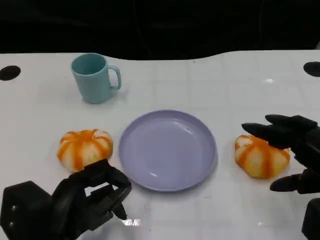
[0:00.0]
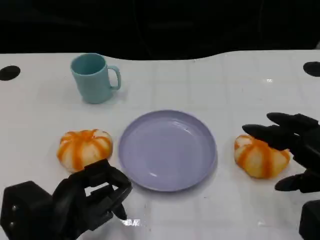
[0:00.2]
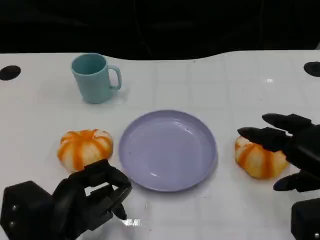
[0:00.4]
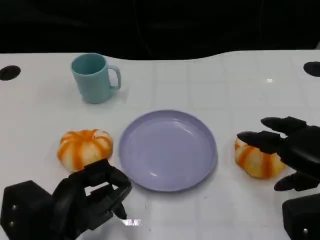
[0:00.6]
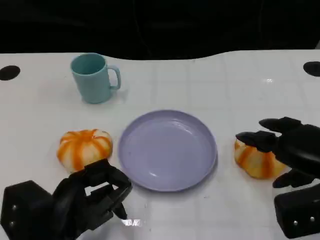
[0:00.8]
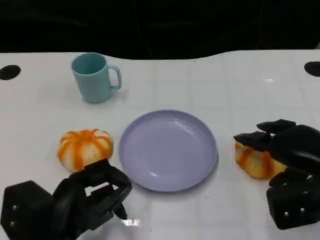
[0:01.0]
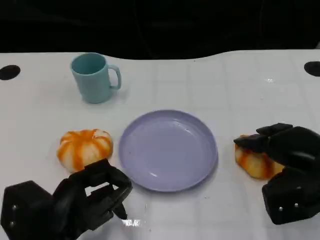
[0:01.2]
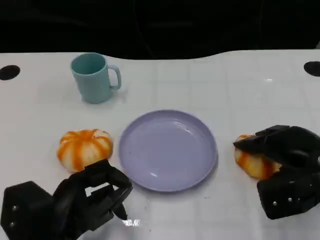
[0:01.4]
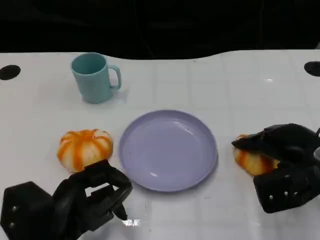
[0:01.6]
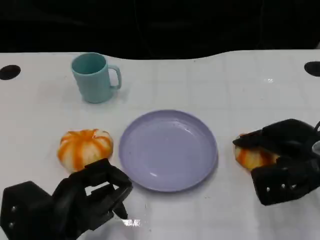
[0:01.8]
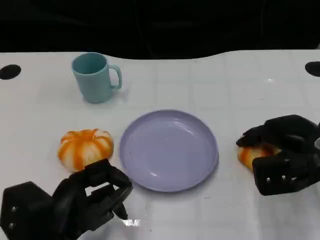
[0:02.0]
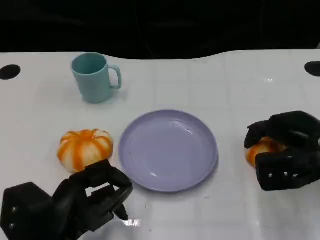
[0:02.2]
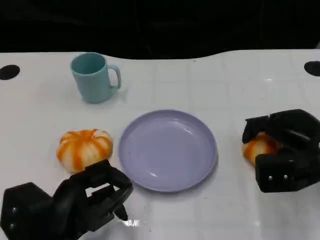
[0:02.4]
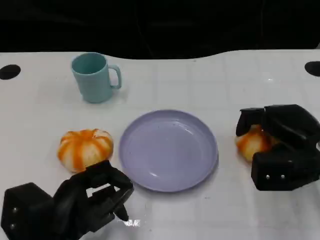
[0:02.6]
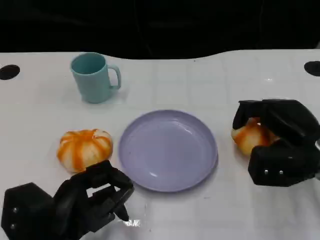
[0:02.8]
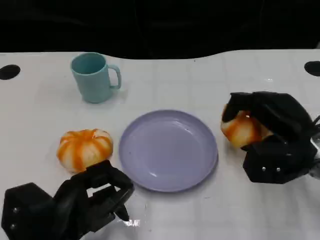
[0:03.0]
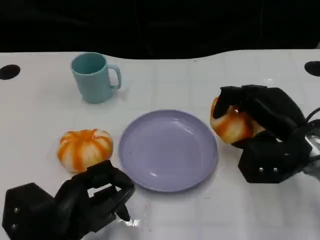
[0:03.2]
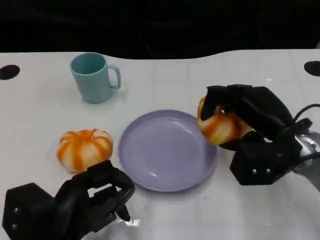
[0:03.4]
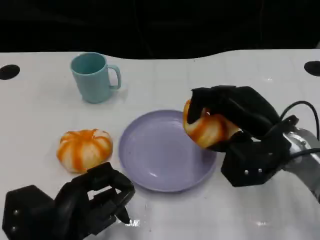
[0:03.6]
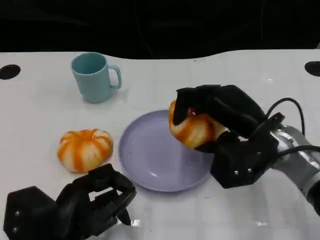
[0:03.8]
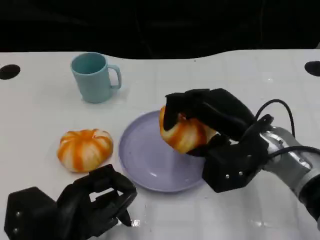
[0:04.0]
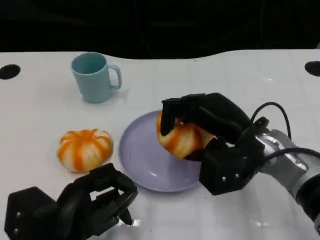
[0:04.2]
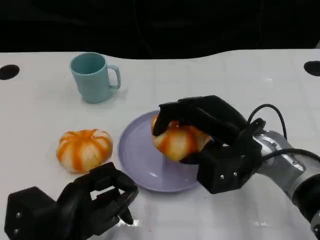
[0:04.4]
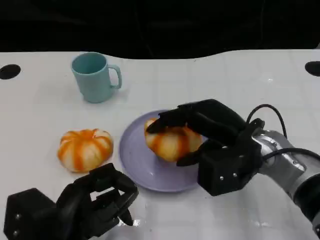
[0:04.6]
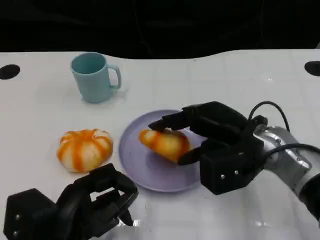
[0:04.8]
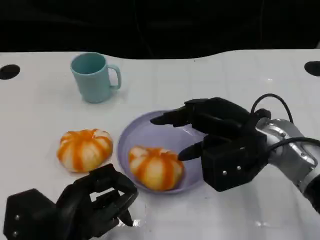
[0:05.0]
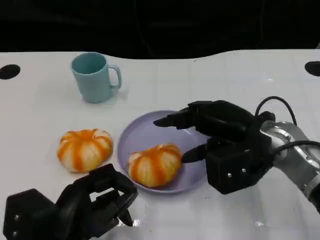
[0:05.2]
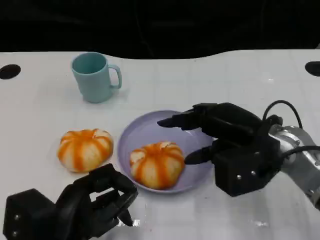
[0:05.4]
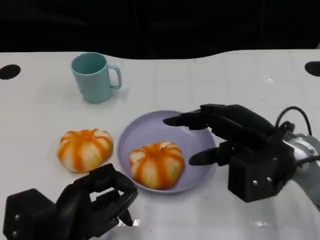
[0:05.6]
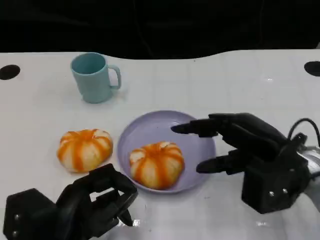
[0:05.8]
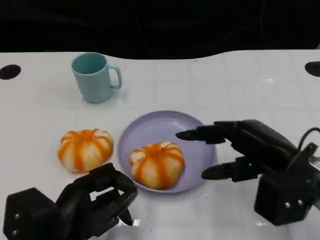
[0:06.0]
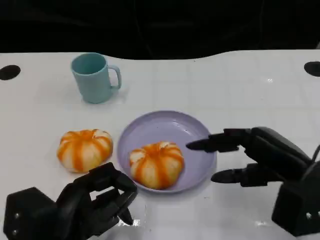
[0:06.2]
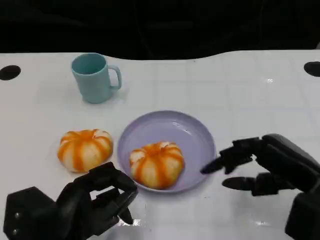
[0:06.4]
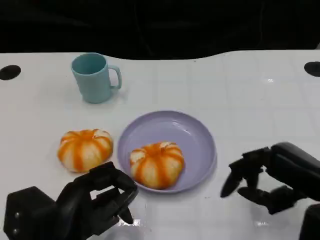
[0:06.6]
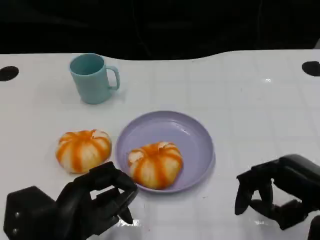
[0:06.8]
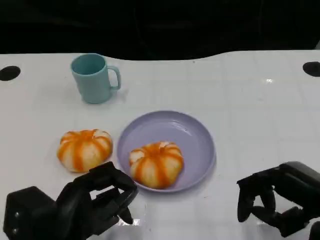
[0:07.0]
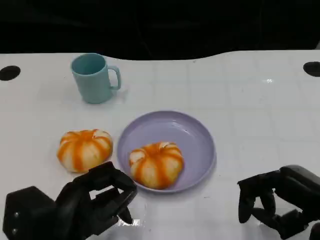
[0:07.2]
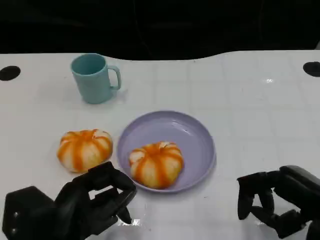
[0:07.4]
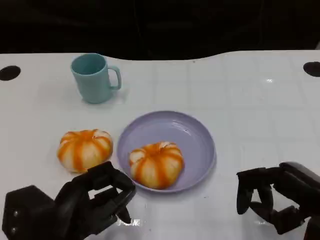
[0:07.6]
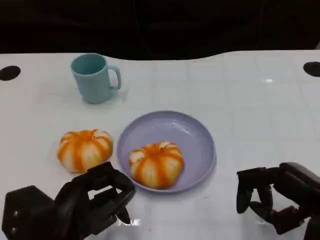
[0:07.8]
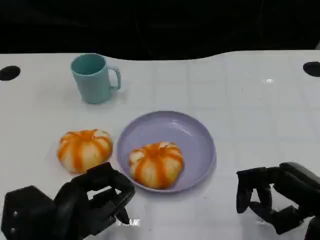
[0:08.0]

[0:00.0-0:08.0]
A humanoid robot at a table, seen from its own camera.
Task of the whole recording: Grasp the bread from the table and place it into the plate.
0:00.0 to 0:01.6: The right hand is displaced forward by some 10 cm.
0:03.2 to 0:04.8: The right hand moves to the left, roughly 5 cm.
0:04.8 to 0:06.4: The right hand goes approximately 10 cm to the right and backward.
0:06.4 to 0:08.0: The hands move only a little.

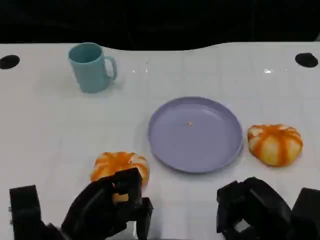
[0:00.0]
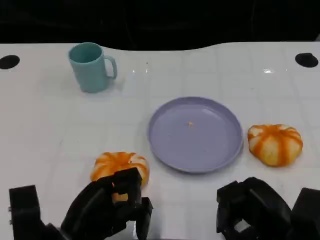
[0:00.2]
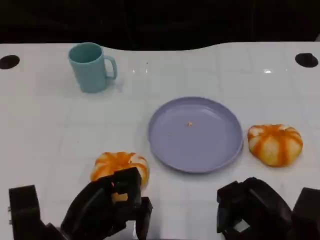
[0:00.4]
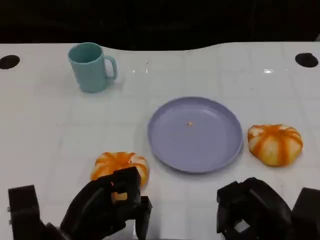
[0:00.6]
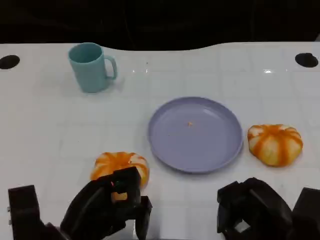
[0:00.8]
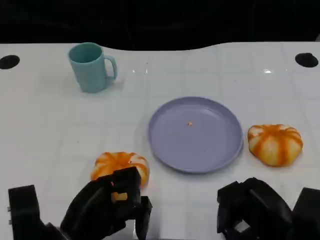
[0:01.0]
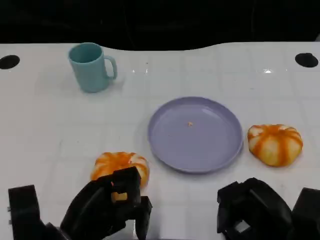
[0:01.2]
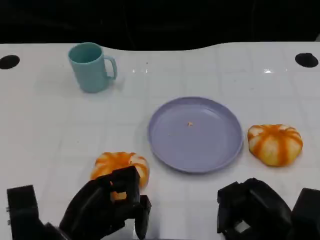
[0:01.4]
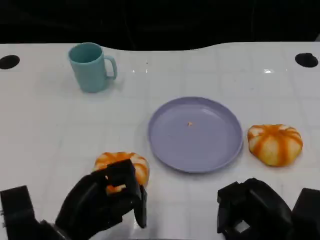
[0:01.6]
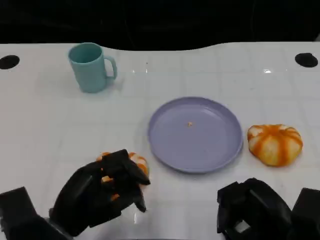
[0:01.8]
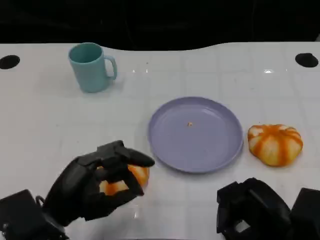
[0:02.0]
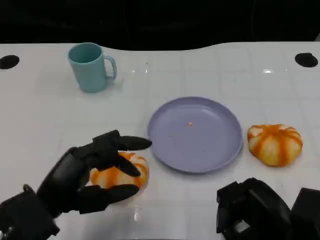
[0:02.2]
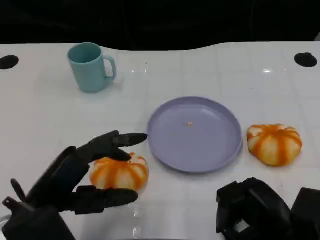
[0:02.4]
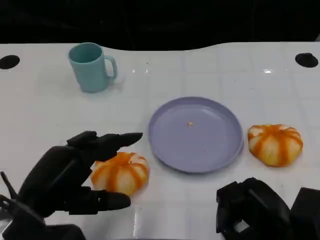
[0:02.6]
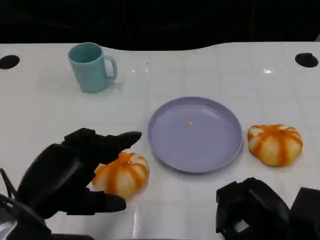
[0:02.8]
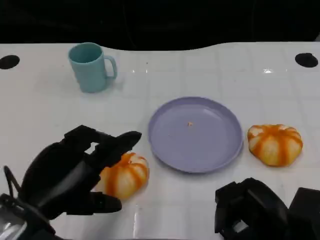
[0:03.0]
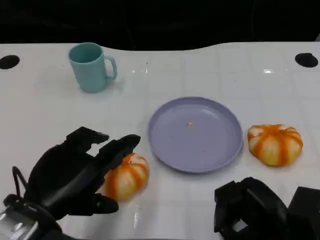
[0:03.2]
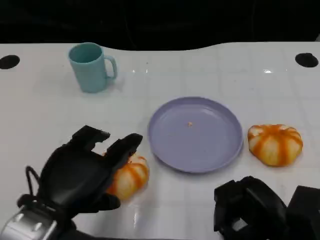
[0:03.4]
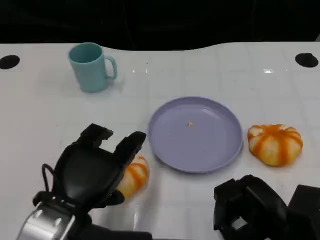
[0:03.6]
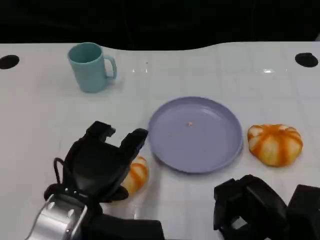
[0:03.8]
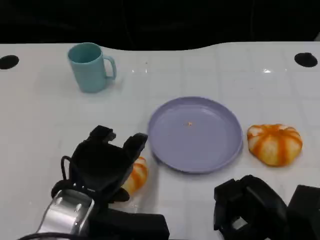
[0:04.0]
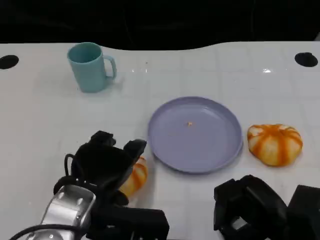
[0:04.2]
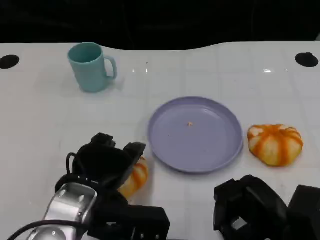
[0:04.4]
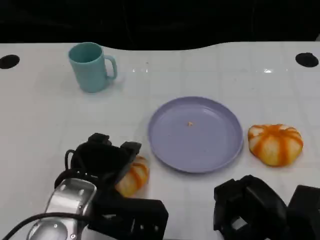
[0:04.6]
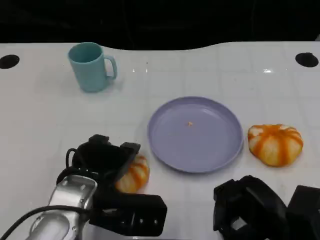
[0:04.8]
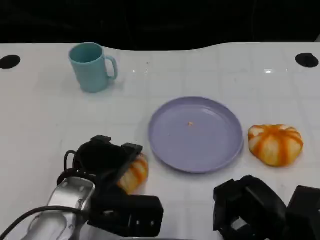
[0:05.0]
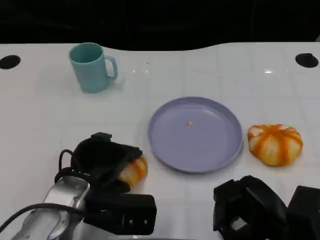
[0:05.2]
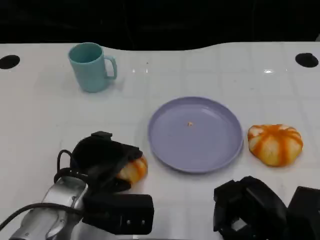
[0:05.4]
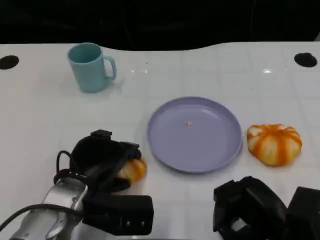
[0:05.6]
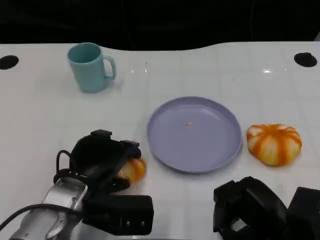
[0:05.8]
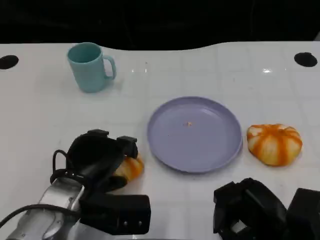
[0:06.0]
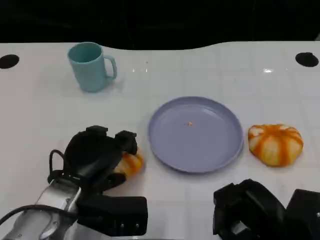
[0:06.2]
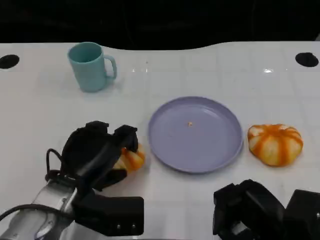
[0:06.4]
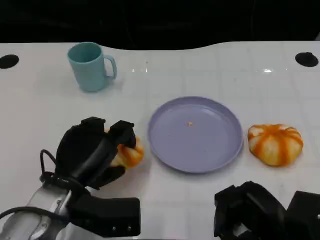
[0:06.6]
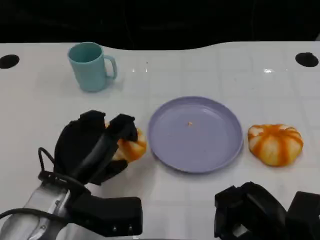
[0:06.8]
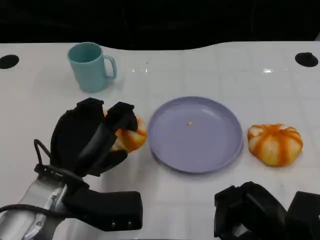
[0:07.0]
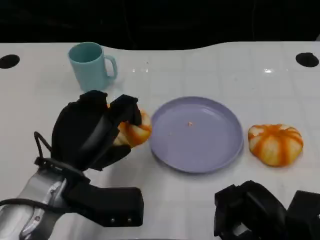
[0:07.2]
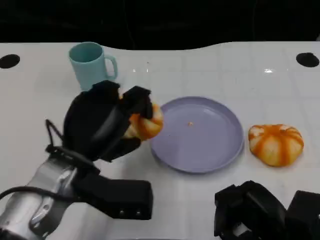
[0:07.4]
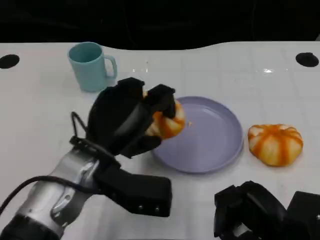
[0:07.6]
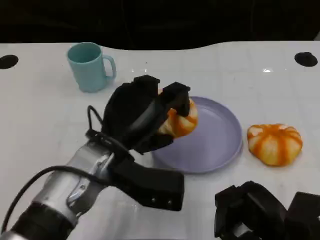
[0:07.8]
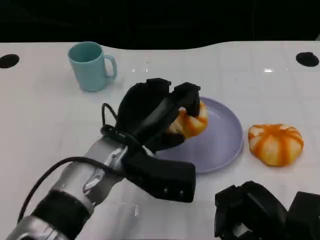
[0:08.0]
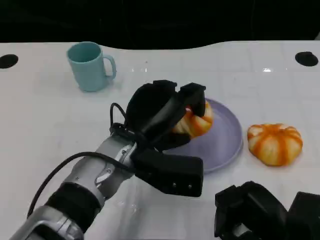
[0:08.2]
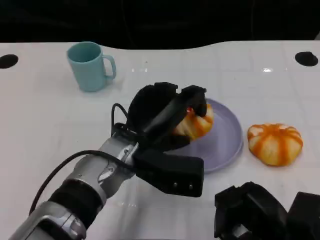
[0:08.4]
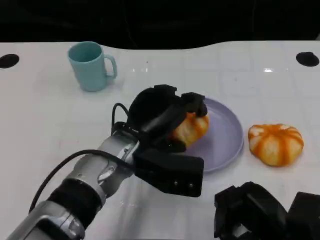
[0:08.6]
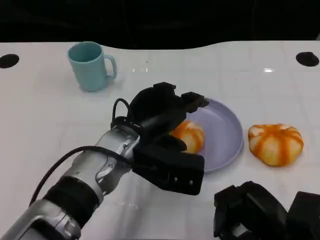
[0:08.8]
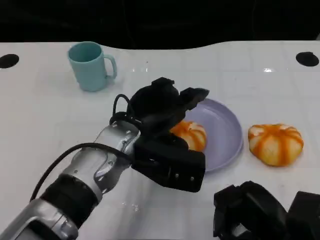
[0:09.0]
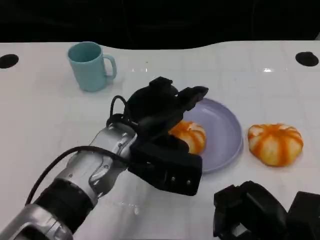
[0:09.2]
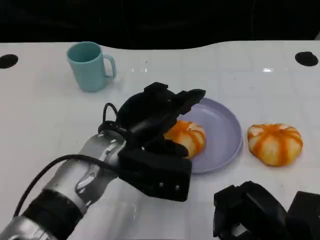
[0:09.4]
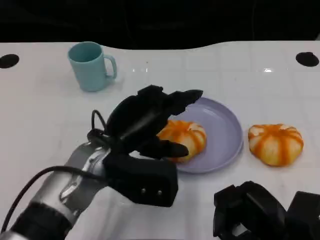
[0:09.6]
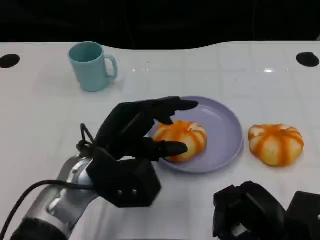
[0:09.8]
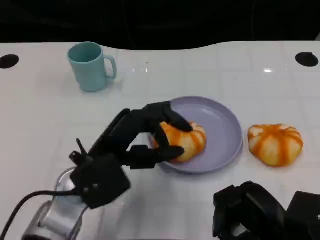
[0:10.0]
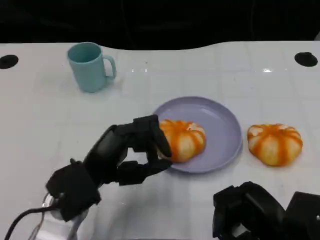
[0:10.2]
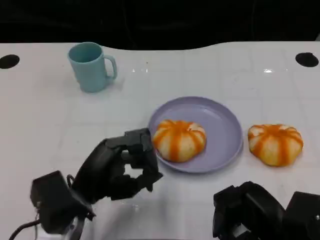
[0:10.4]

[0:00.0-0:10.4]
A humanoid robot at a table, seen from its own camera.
Task of the whole recording: Grasp the bread from the table and place it into the plate.
0:00.0 to 0:01.4: Both hands stay put.
0:01.4 to 0:03.0: The left hand shifts about 10 cm upward.
0:03.0 to 0:04.4: The left hand heads to the right, covering roughly 5 cm.
0:04.4 to 0:06.0: The left hand ends up roughly 5 cm from where it was.
0:06.0 to 0:07.4: The left hand goes roughly 5 cm upward.
0:07.4 to 0:09.0: The left hand is displaced to the right by some 5 cm.
0:09.0 to 0:10.4: The left hand travels to the left, backward and downward by approximately 15 cm.

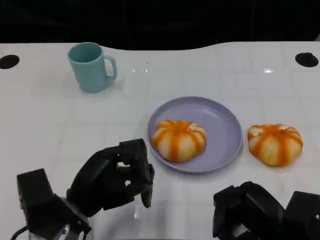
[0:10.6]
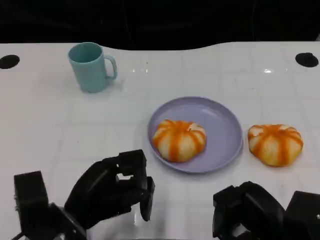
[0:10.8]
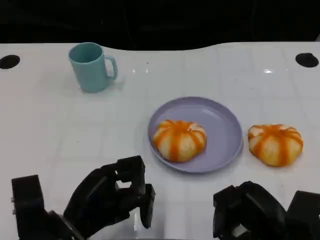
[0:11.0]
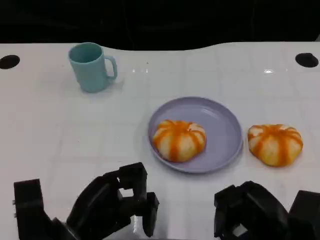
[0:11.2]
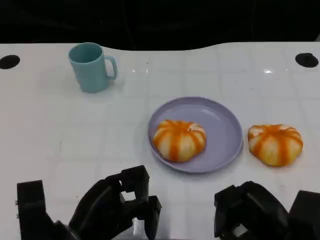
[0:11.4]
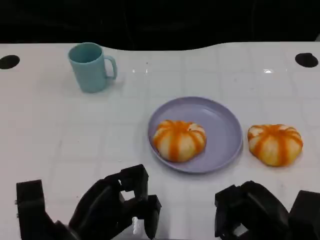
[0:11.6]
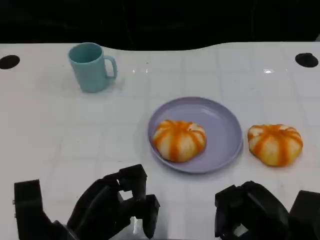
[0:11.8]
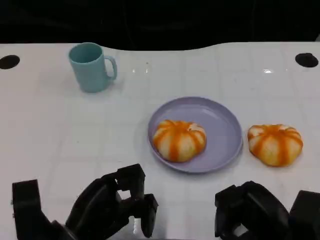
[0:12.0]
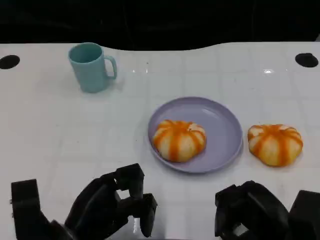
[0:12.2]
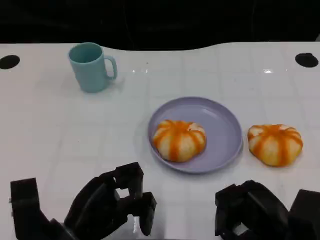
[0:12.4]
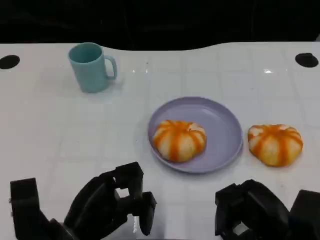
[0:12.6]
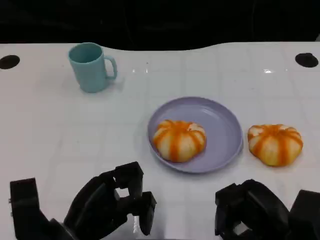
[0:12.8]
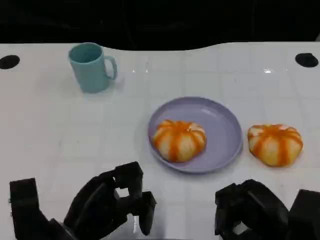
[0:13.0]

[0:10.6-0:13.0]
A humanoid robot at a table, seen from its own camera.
Task of the whole recording: Grasp the bread from the table and place it into the plate.
0:10.6 to 0:11.8: The hands stay close to where they were, moving slightly.
0:11.8 to 0:13.0: The two hands keep their place.

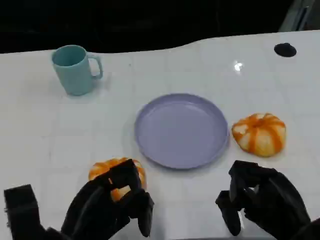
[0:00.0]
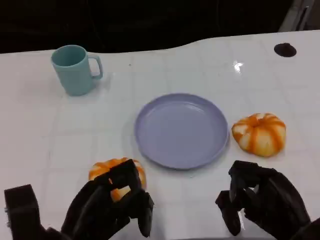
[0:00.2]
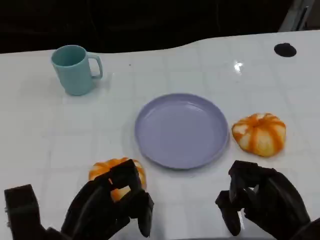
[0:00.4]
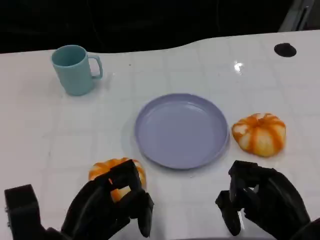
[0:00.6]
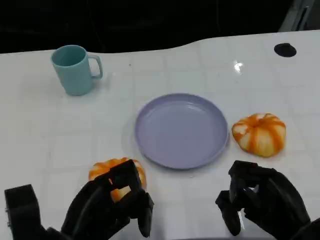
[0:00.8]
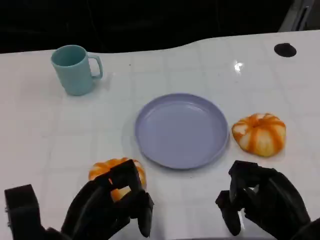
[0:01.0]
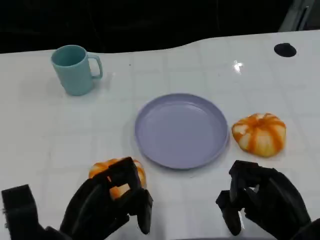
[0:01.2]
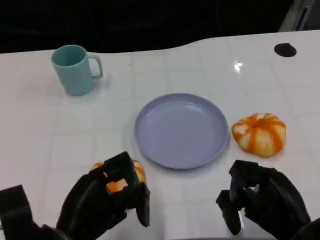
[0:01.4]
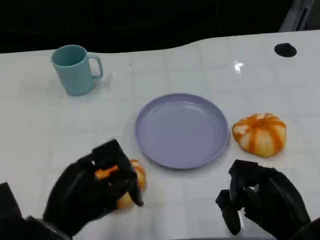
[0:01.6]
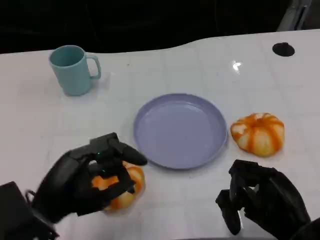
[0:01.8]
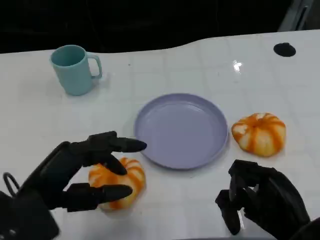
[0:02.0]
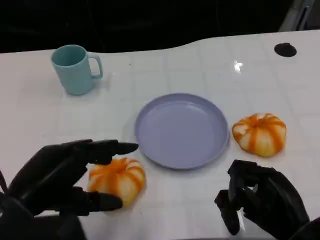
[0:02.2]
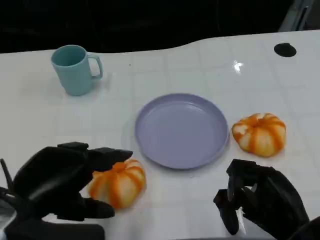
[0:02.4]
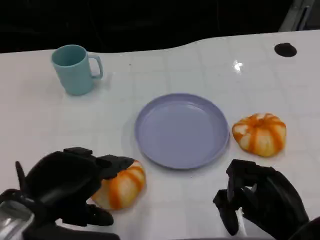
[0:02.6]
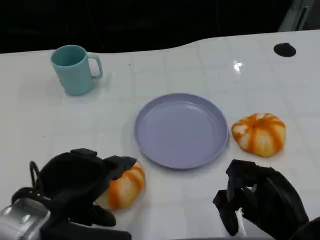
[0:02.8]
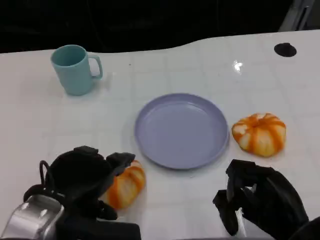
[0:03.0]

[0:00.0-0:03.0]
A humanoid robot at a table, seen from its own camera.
Task of the whole recording: Grasp the bread from the table and place it into the plate.
0:00.0 to 0:01.6: There are only small adjustments of the hands.
